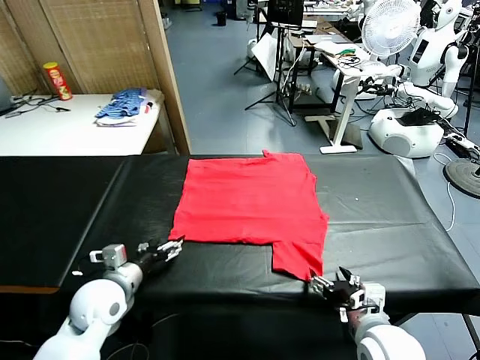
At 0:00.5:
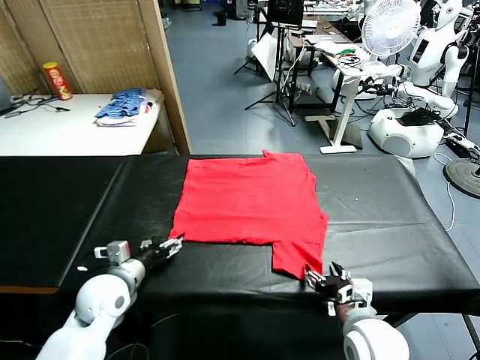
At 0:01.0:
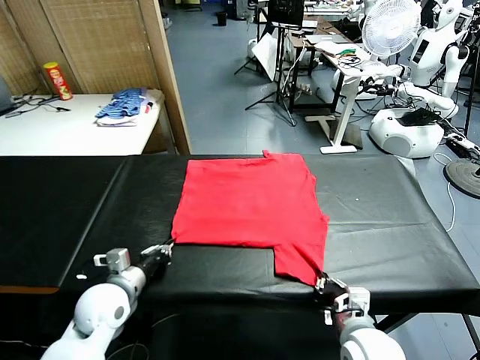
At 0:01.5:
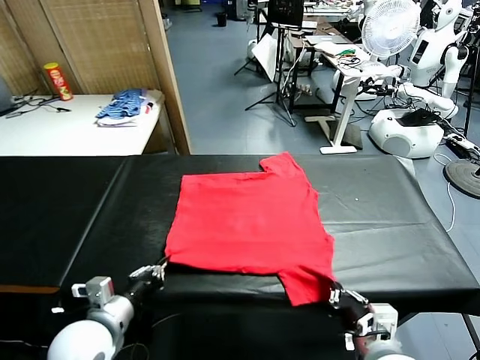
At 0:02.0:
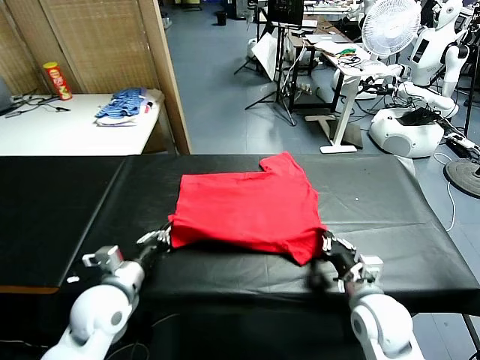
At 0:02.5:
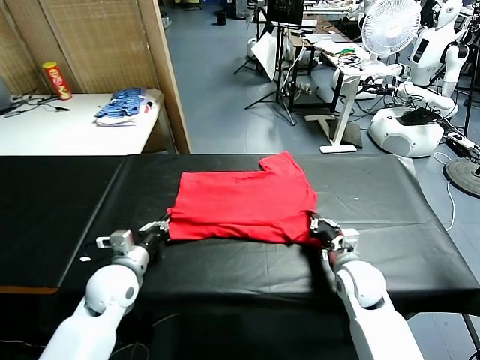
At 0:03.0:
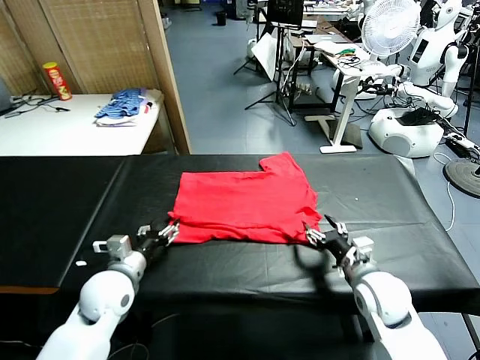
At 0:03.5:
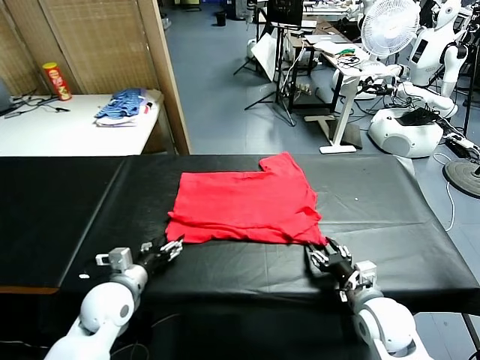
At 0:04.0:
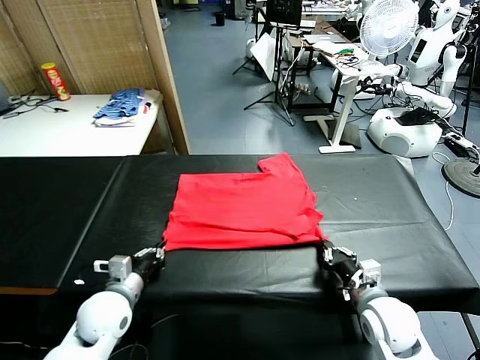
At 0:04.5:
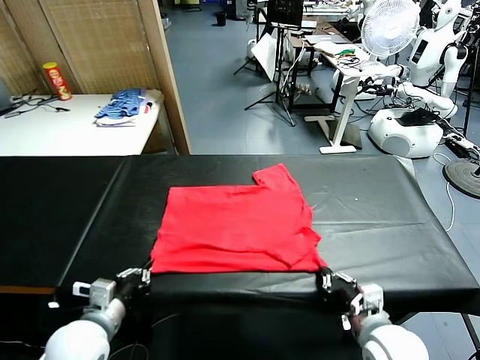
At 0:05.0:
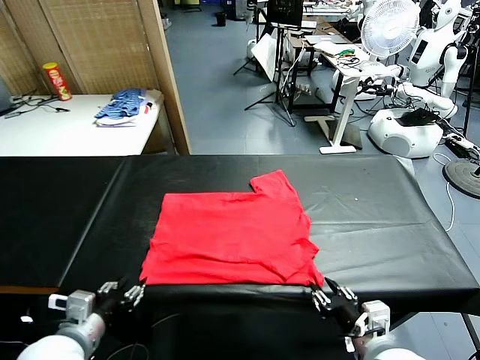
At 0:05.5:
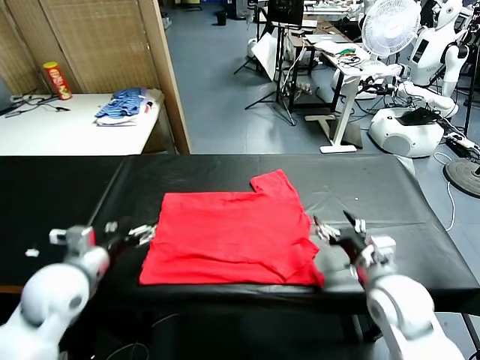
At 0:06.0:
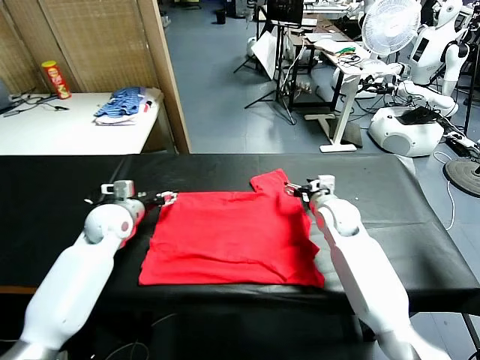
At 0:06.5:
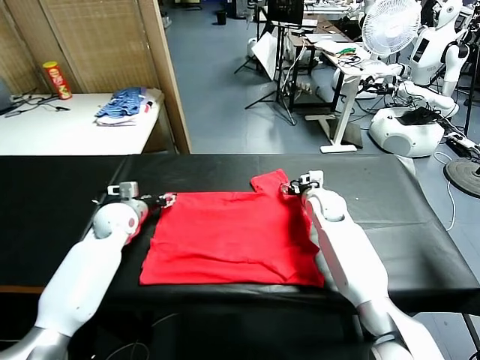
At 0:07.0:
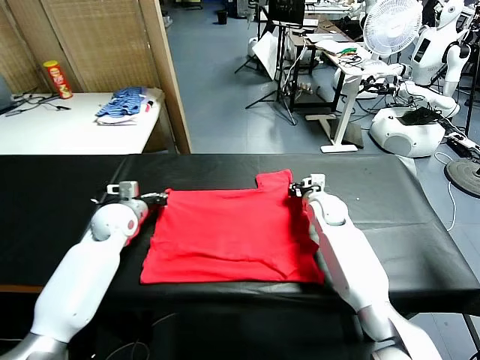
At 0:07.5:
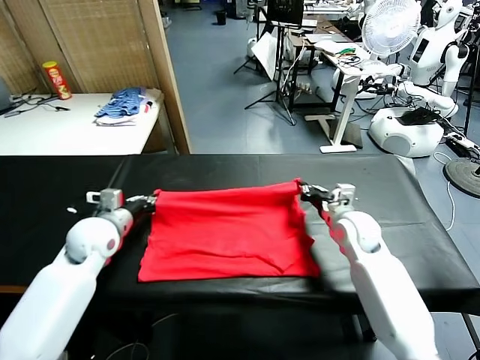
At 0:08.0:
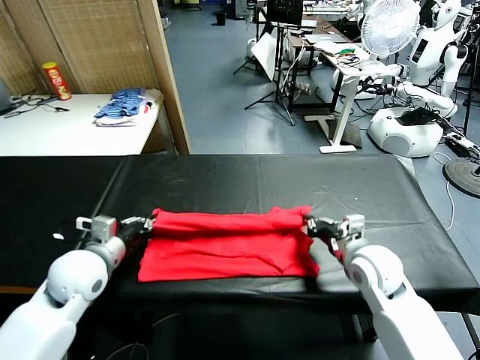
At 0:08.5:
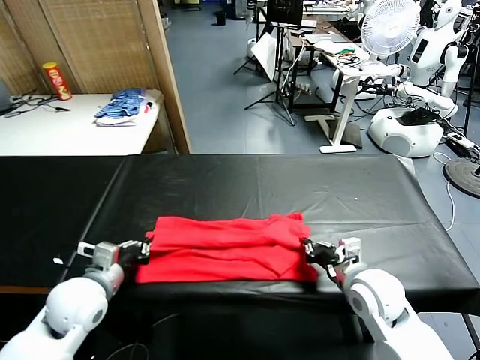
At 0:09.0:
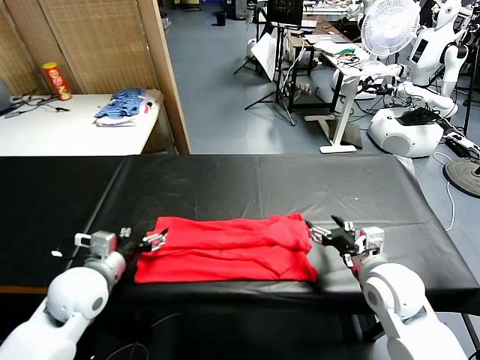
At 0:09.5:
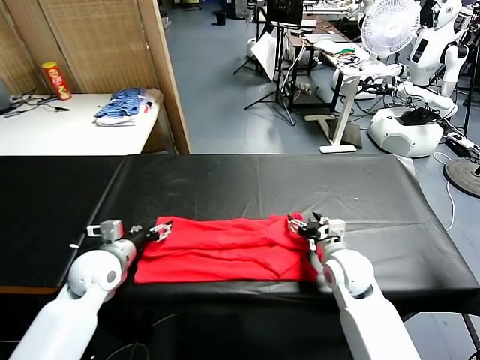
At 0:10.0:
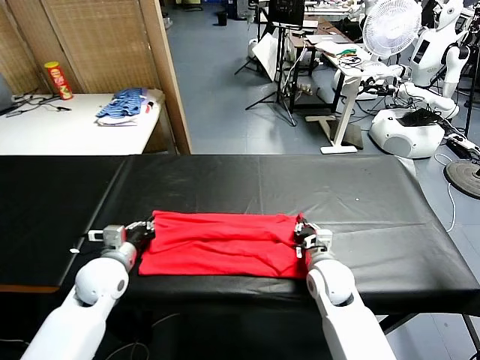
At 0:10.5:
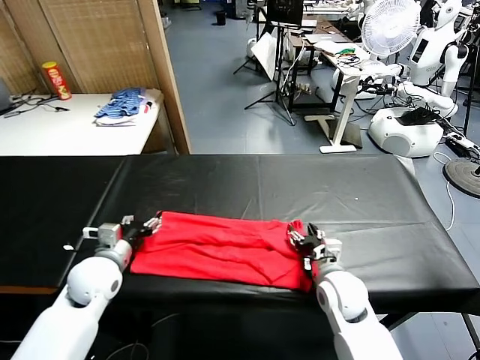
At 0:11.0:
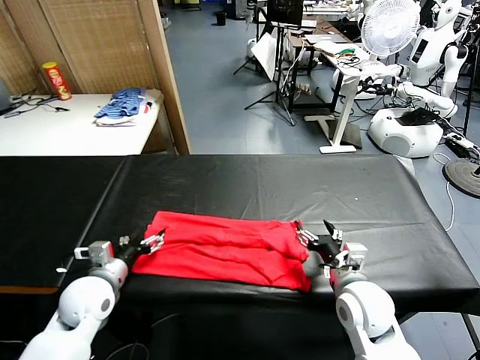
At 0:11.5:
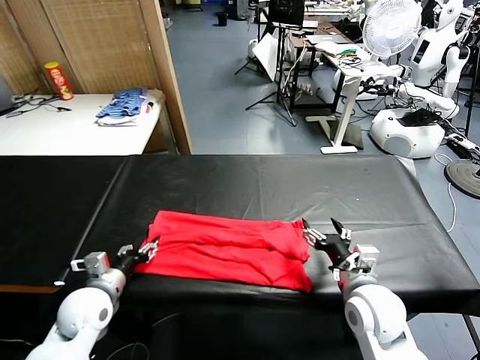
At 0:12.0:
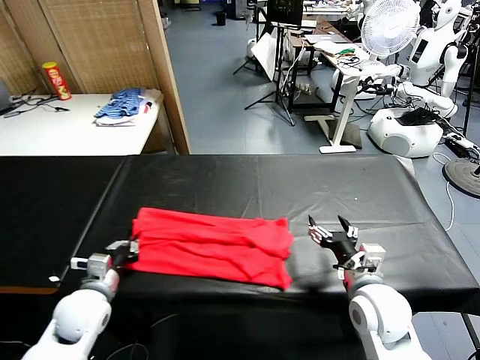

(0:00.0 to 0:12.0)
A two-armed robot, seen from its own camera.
Task of the whole recording: fold and organize the clothes.
Step, 0:00.0 - 0:01.0: use both grippers simultaneously to clamp the lower edge of the clothing fabric.
Step, 0:01.5 - 0:03.0: use both grippers to drag the lower edge of the fabric forward and fold it over the upper edge.
Step, 0:03.5 - 0:05.0: Drag the clothes downward with both gripper.
Step, 0:05.5 - 0:07.0: use both grippers simultaneously to clamp the upper edge of the clothing fabric.
Step, 0:07.5 - 0:08.5: use both grippers to drag the upper edge of the fabric backward and fold it over the lower edge.
Step, 0:09.0 - 0:12.0: use the left gripper to clamp the left edge of the fabric.
0:02.0 - 0:04.0: The left gripper opens, then closes once more; the right gripper heads backward, covering approximately 5 cm, and opens and closes again.
0:04.0 - 0:06.0: The two grippers go some 25 cm forward. The left gripper opens up, while the right gripper opens.
0:06.0 - 0:08.0: The two grippers go roughly 20 cm backward. The left gripper closes. Meanwhile the right gripper closes its fingers.
0:08.0 - 0:10.0: The left gripper travels downward by approximately 5 cm, and opens and closes again, while the right gripper shifts some 10 cm downward and to the left, and opens, then closes again.
0:10.0 - 0:12.0: The left gripper moves backward, approximately 5 cm, and opens and closes again, while the right gripper shifts some 15 cm upward, backward and to the right, and opens up.

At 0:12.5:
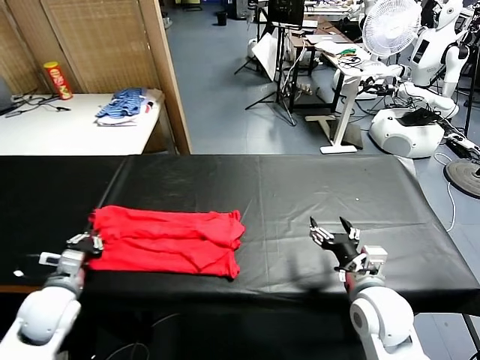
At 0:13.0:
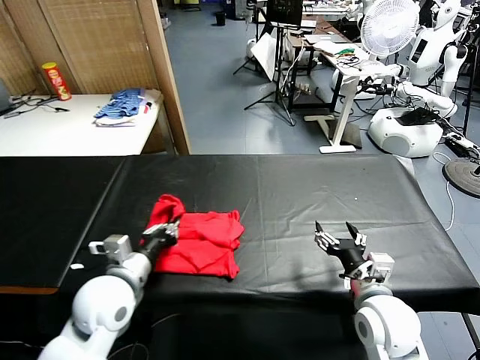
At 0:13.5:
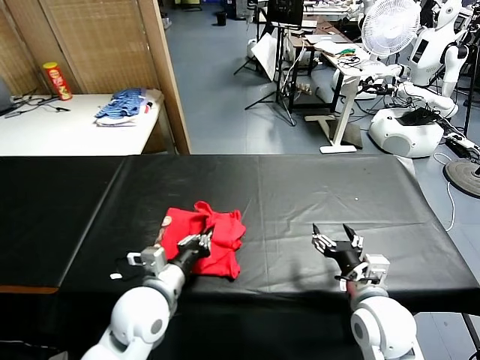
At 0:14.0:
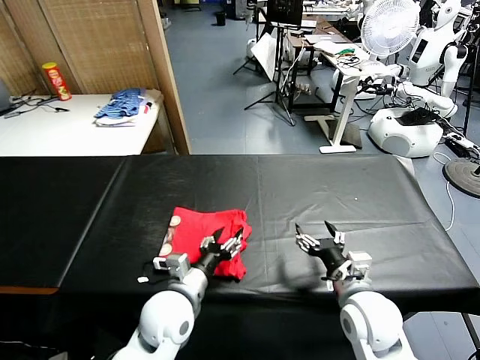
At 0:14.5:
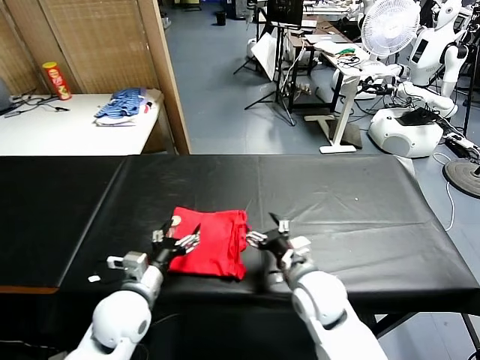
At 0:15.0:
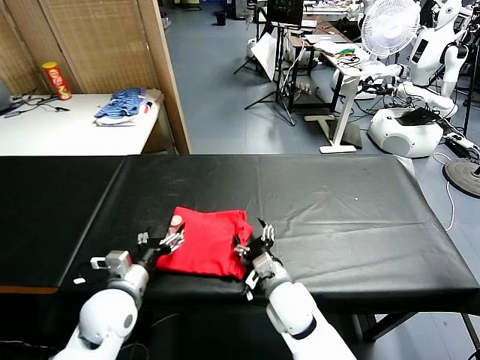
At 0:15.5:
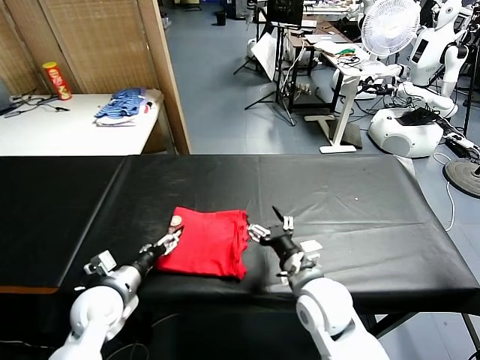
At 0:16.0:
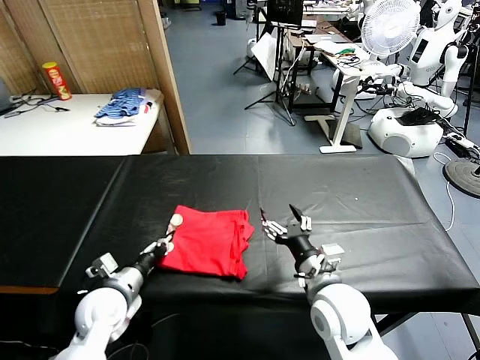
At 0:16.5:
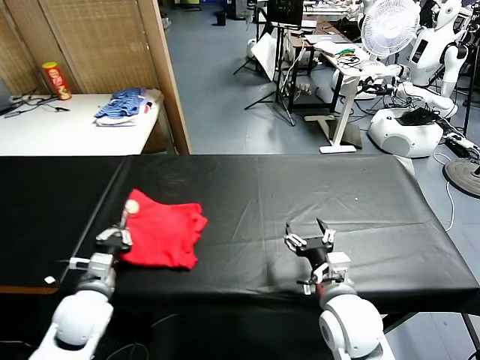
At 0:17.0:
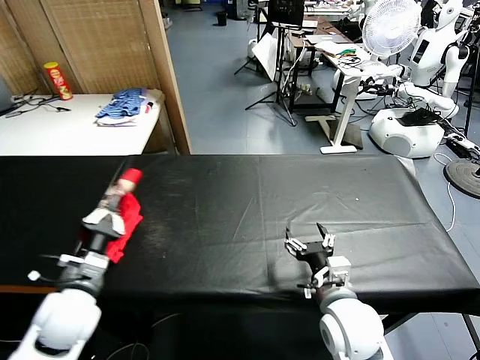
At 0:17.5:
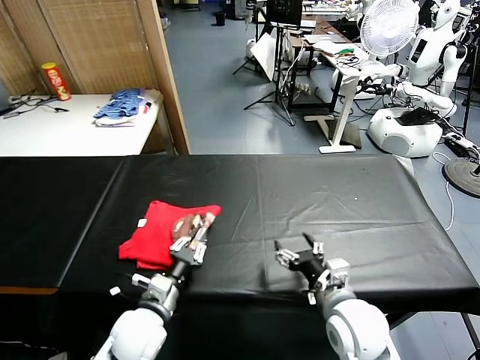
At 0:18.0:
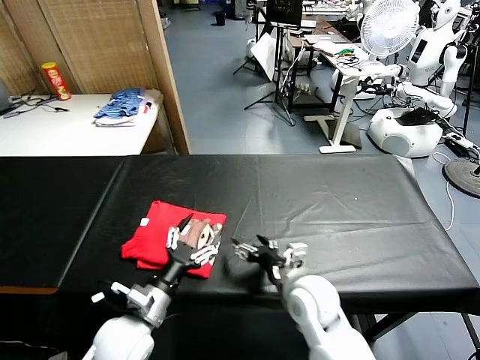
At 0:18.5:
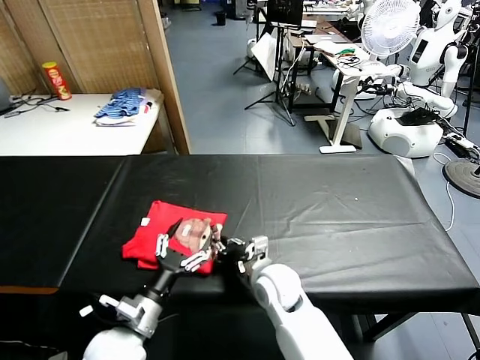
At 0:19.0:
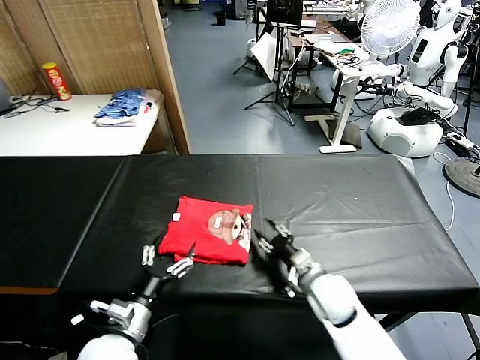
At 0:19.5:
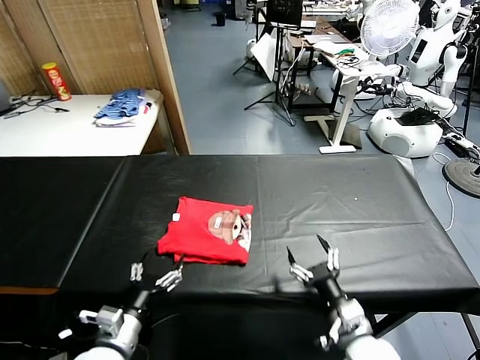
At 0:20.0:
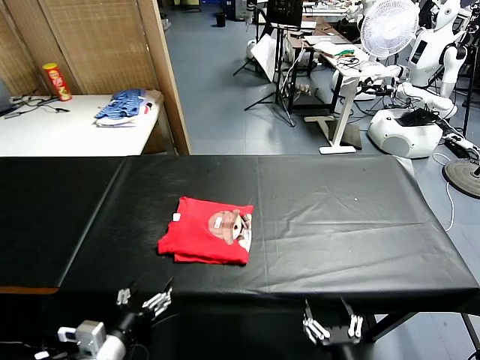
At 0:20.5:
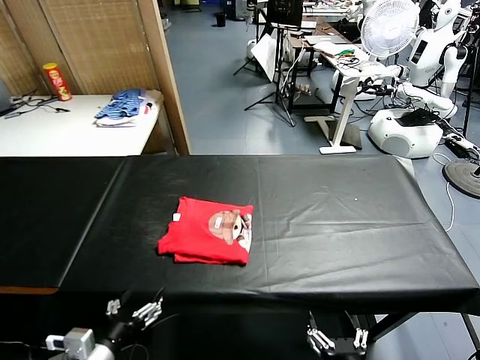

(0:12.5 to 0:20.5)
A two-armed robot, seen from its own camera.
Task of the whole recording: fold and organize the clothes.
Step, 0:12.5 - 0:14.0: use the left gripper to drag the left edge of the fabric to the left and folds it over the right edge.
Step, 0:14.5 - 0:17.5: Flip the folded clothes over with left gripper.
Step, 0:18.0 - 0:19.0: Drag the clothes to the center of the table.
0:12.5 - 0:14.5: The right gripper is displaced to the left and forward by some 10 cm. Meanwhile the left gripper moves to the right, approximately 15 cm, and opens up.
0:14.5 - 0:16.5: The right gripper goes about 5 cm backward. Meanwhile the left gripper goes some 10 cm to the left, and closes its fingers.
0:16.5 - 0:18.5: The left gripper shifts approximately 10 cm to the right and backward, and opens. The right gripper goes some 15 cm to the left, forward and downward, and closes its fingers.
0:18.5 - 0:20.5: The left gripper goes some 10 cm backward and to the left, while the right gripper shifts roughly 30 cm backward and to the right, and opens up.
